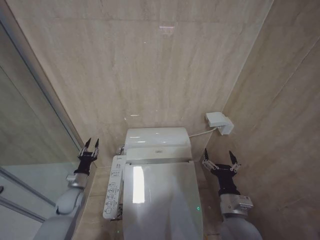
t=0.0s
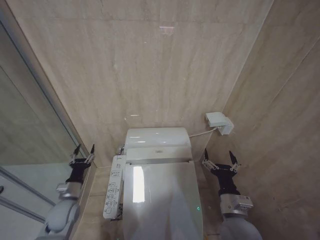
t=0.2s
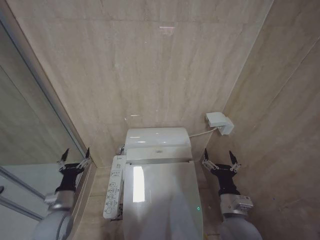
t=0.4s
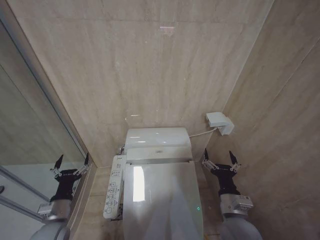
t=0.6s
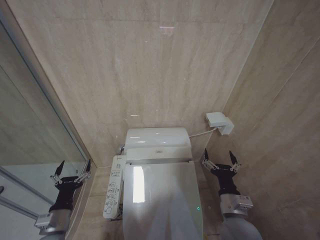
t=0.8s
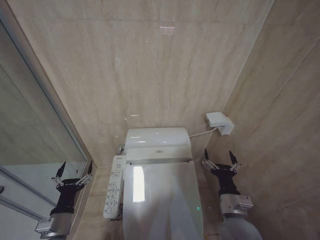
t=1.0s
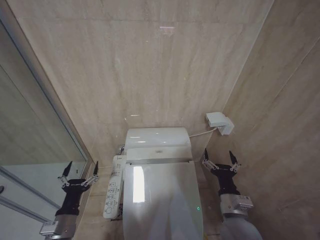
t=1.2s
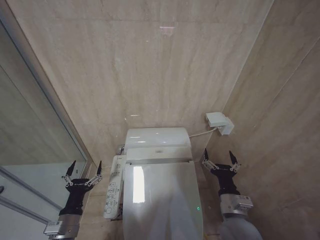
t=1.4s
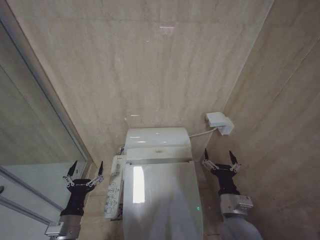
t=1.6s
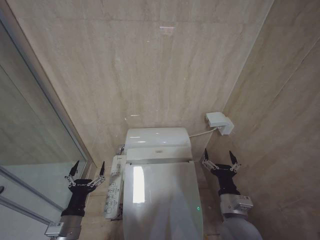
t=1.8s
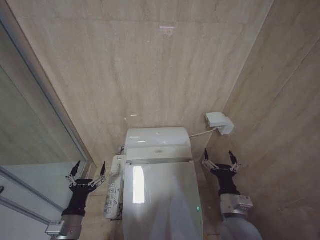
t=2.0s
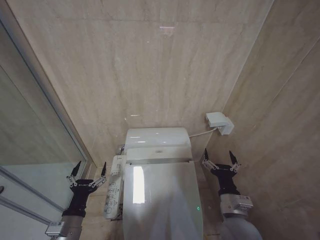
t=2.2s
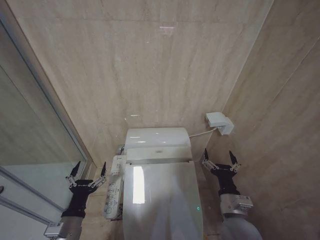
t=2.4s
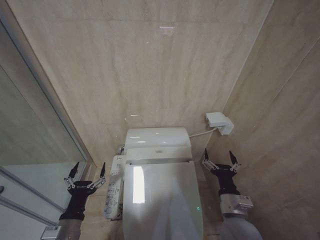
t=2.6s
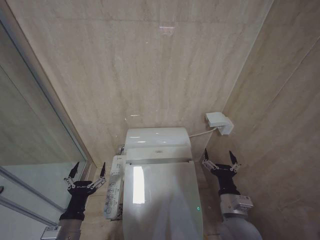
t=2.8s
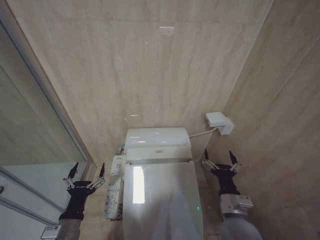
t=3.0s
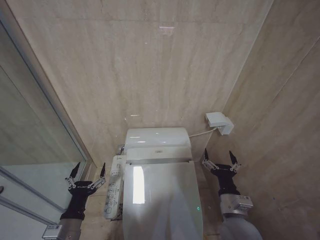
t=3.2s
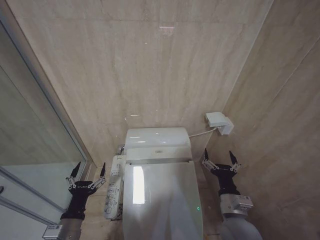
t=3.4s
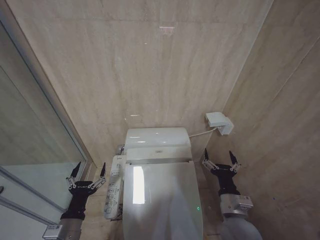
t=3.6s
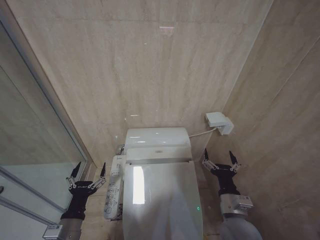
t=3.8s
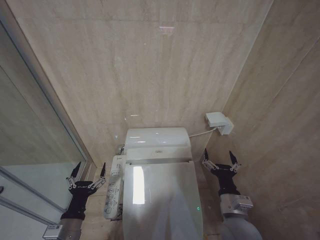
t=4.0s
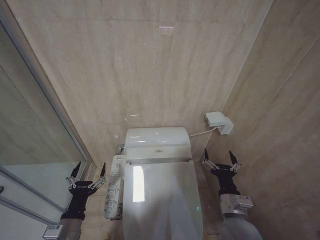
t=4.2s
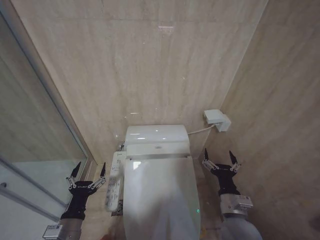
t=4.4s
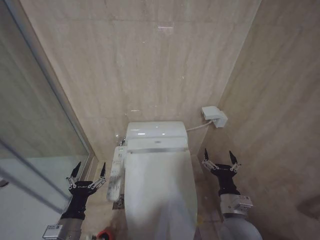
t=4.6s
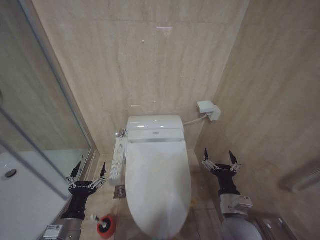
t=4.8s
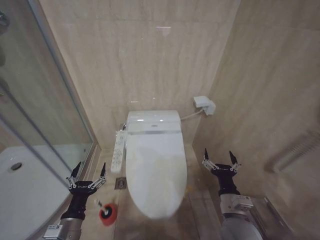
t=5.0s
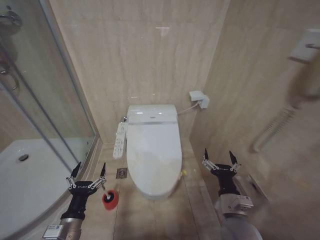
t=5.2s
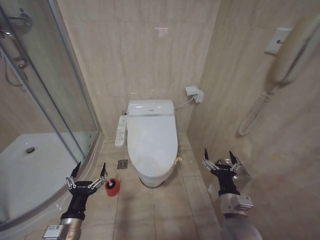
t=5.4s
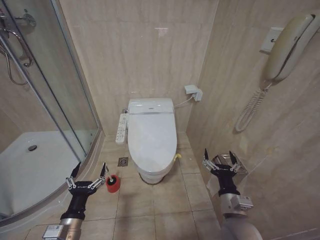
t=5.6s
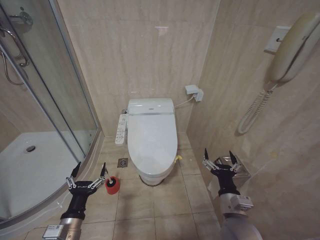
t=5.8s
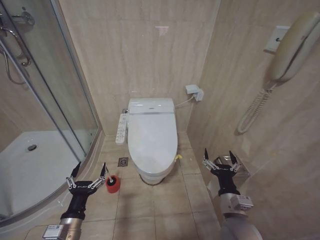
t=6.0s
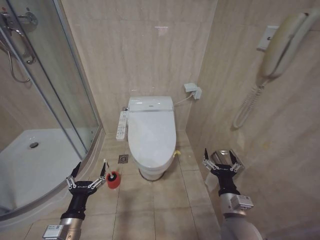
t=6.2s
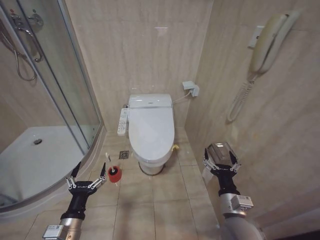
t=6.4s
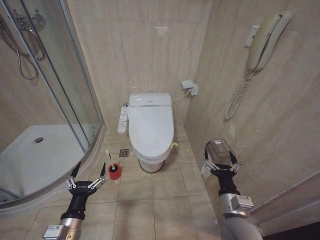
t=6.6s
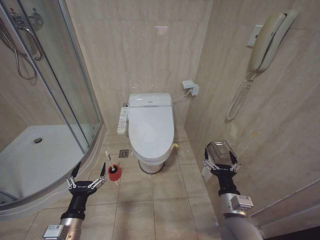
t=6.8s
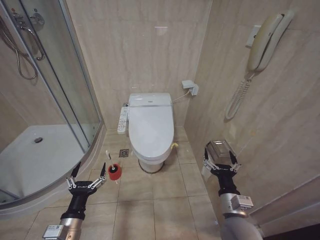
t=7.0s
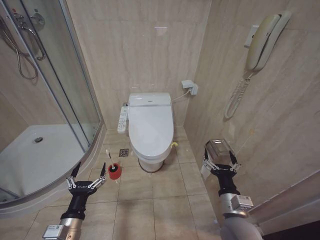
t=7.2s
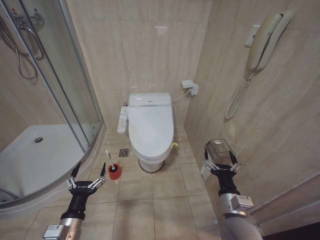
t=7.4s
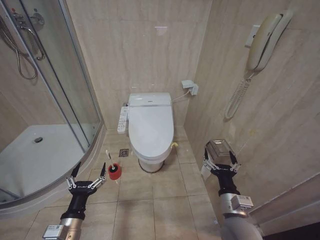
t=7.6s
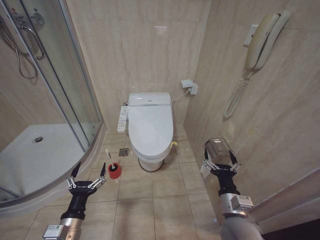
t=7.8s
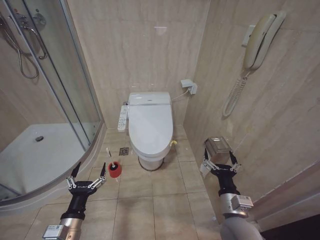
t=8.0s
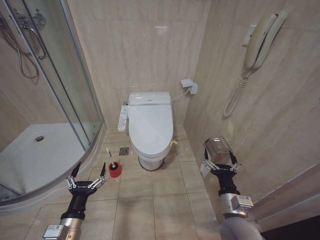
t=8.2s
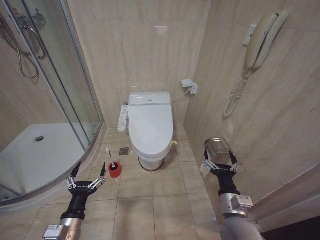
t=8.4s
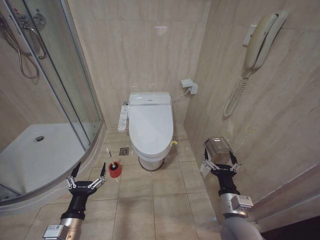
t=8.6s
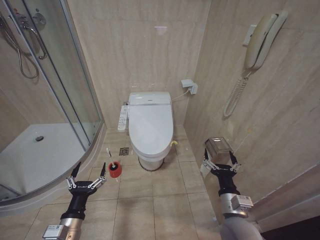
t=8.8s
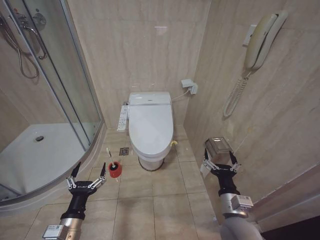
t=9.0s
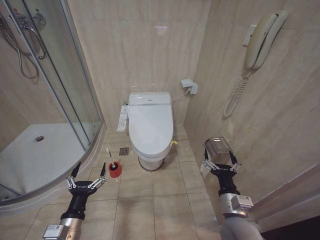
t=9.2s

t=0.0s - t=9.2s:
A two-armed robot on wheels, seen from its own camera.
Task of the whole recording: Open the toilet lid, clean the toilet bowl with a toilet brush, close the toilet lid, and flush.
t=0.0s - t=1.6s: The left gripper heads backward, covering some 20 cm, and opens up.
t=1.6s - t=3.0s: The grippers move only a little.
t=3.0s - t=4.6s: Both grippers stay about where they are.
t=6.2s - t=9.2s: Both grippers stay put.

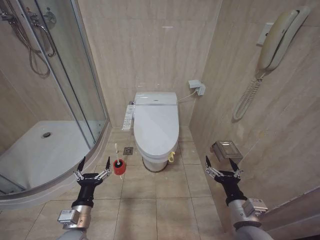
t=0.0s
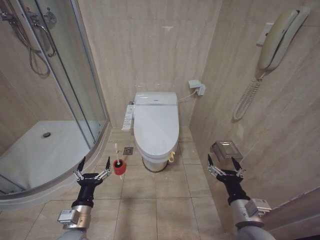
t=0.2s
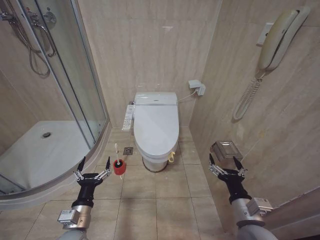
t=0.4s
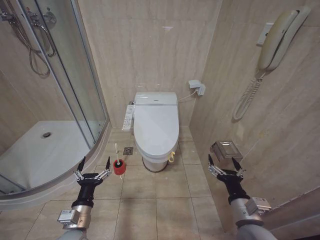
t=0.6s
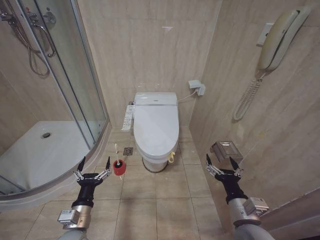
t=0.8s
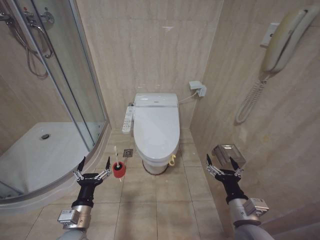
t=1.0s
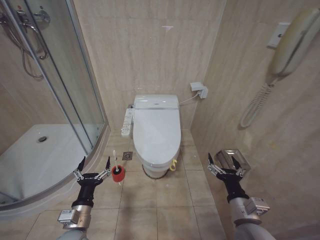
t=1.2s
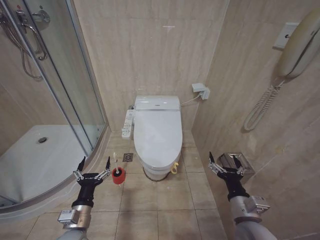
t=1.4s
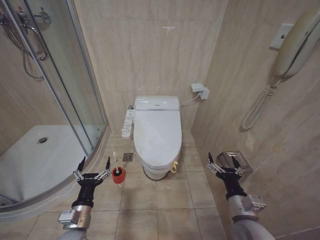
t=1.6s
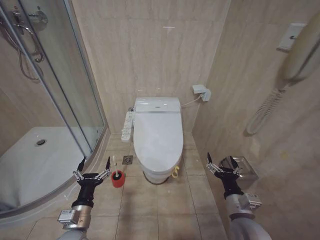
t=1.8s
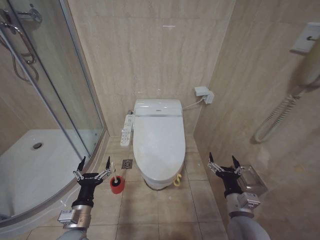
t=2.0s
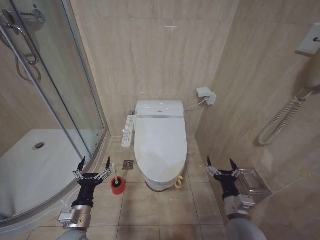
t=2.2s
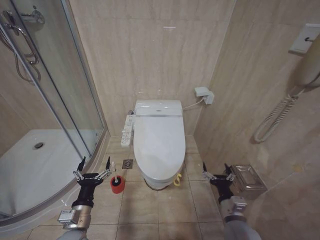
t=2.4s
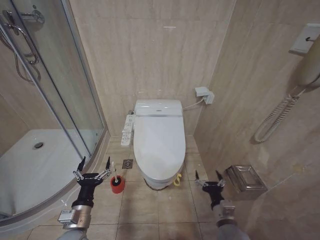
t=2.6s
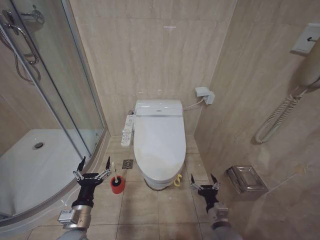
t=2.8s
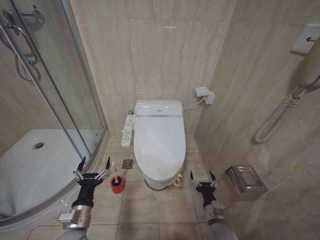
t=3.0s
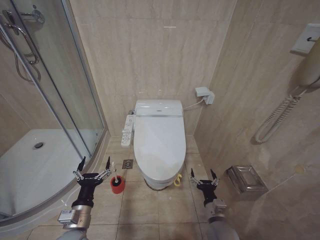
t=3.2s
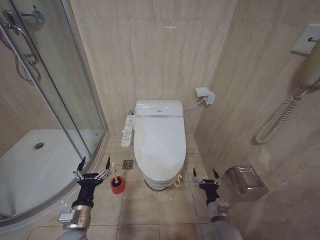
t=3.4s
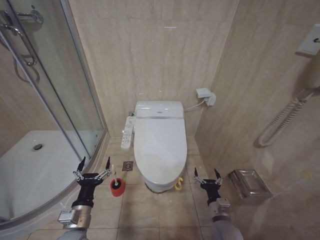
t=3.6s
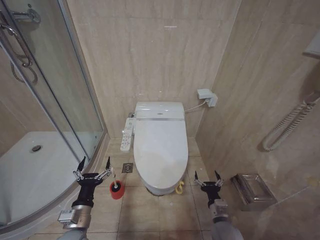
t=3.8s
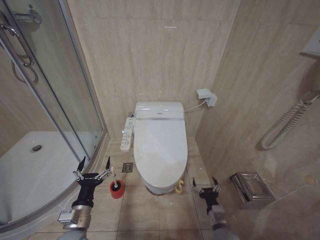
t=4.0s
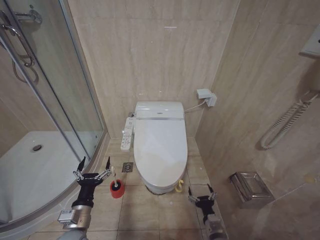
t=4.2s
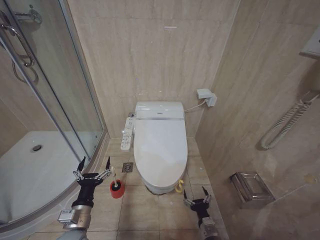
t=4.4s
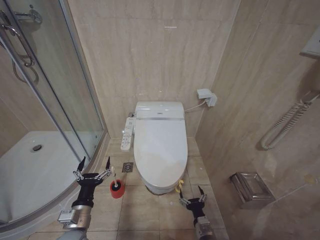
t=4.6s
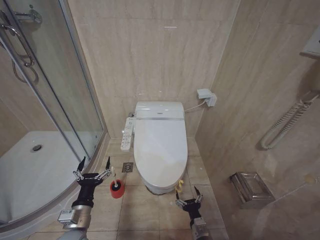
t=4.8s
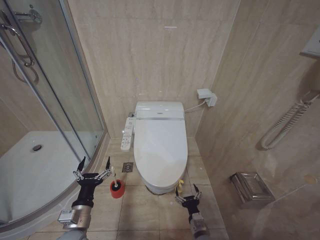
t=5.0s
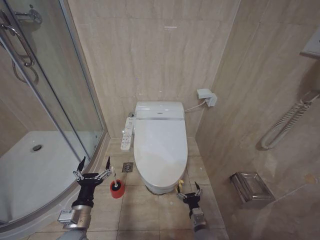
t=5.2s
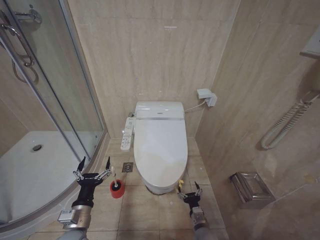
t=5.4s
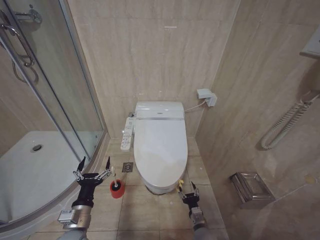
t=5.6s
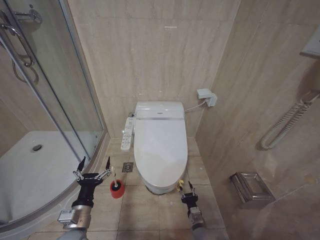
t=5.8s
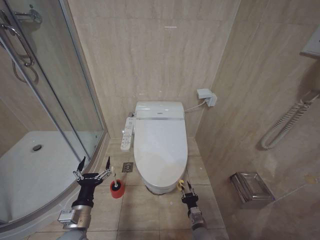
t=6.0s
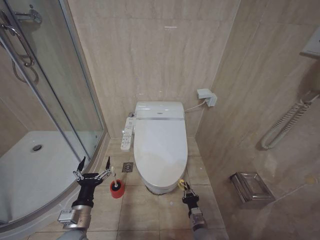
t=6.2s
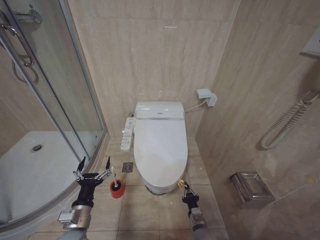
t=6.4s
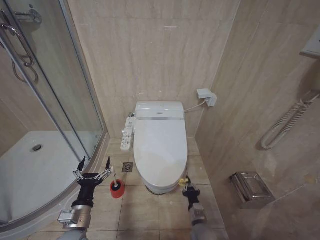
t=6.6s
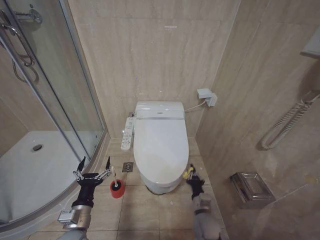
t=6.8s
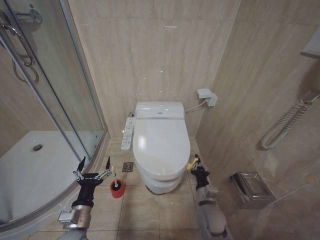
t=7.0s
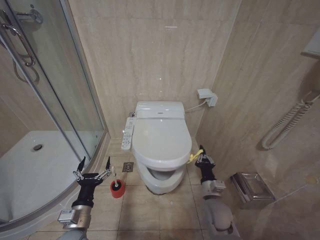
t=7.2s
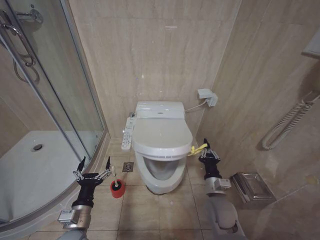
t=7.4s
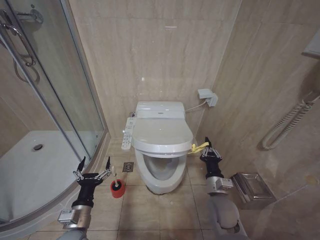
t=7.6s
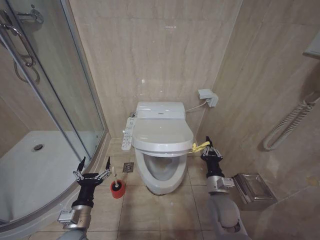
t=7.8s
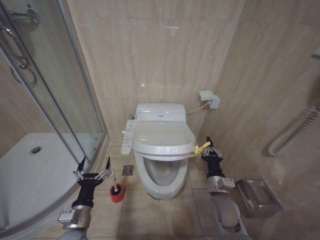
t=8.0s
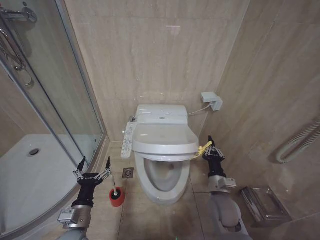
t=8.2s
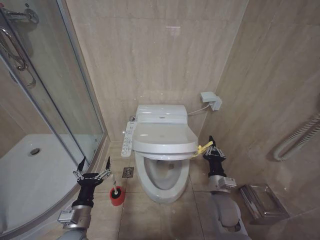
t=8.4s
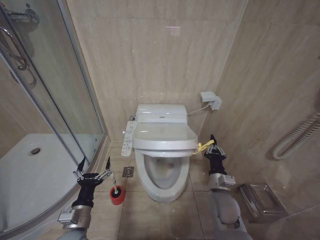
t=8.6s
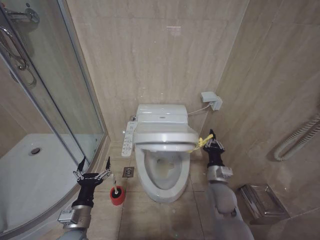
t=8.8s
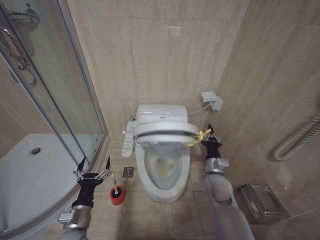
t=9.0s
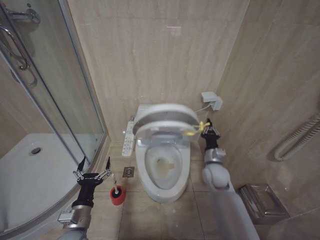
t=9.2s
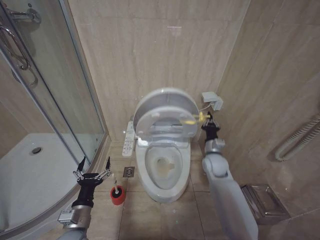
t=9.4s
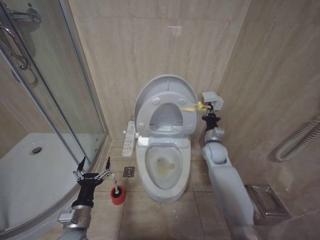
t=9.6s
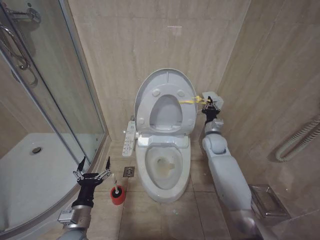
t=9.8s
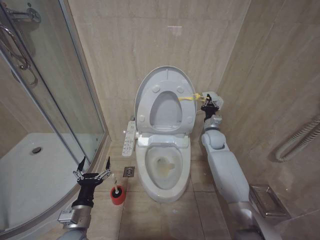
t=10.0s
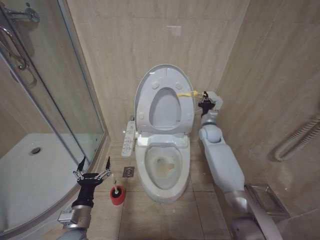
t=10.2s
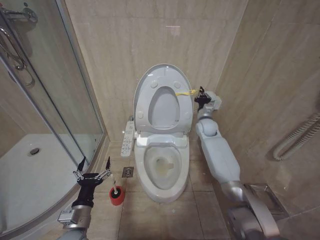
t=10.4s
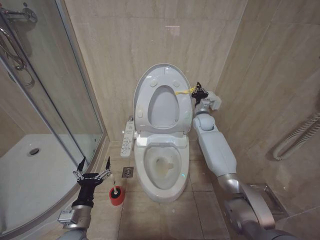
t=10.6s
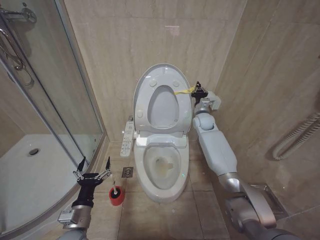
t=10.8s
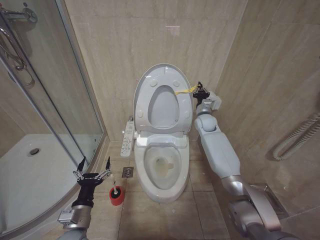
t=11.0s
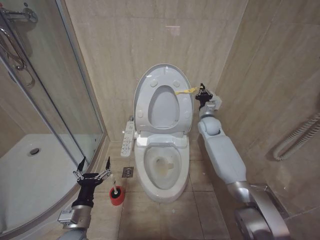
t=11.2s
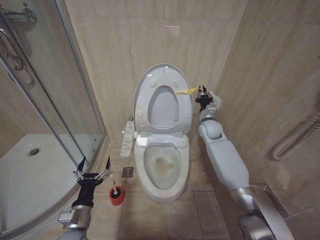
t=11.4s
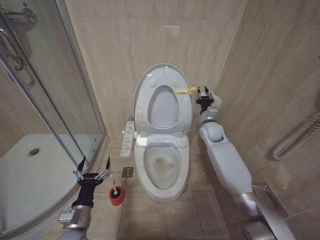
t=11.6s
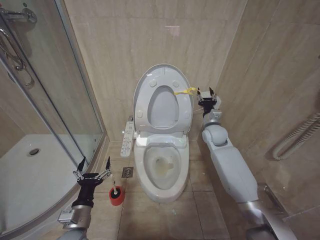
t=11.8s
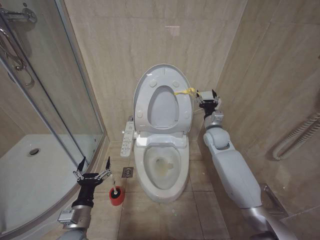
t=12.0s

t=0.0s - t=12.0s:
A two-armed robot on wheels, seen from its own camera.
Task of the whole recording: Open the toilet lid, clean the toilet bowl with a toilet brush, close the toilet lid, and flush.
t=1.6s - t=3.0s: The right gripper moves downward, approximately 15 cm.
t=3.0s - t=4.4s: The right gripper heads downward, covering some 5 cm.
t=4.4s - t=6.0s: The right gripper goes about 5 cm forward and downward, and closes up.
t=6.0s - t=7.6s: The right gripper shifts some 20 cm upward, and closes its fingers.
t=7.6s - t=9.0s: The right gripper changes place by roughly 5 cm.
t=9.0s - t=10.4s: The right gripper moves forward and upward, roughly 25 cm.
t=10.4s - t=12.0s: The right gripper shifts roughly 5 cm backward, and opens its fingers.

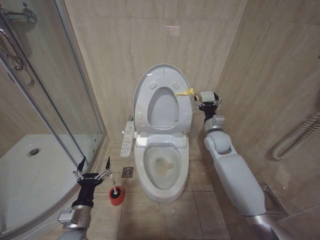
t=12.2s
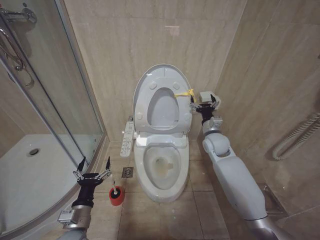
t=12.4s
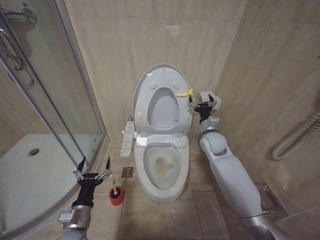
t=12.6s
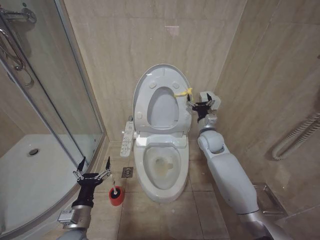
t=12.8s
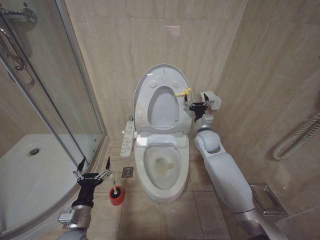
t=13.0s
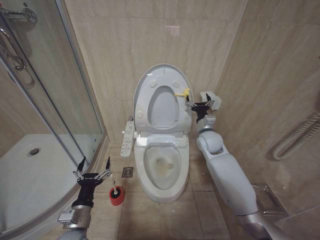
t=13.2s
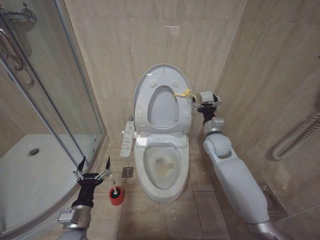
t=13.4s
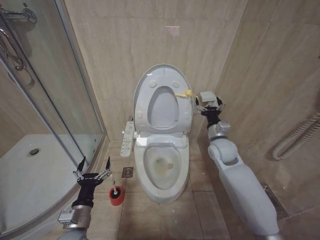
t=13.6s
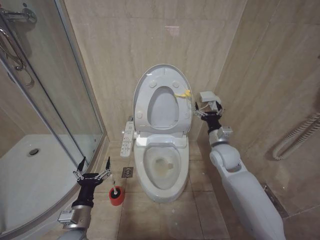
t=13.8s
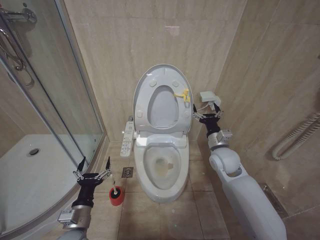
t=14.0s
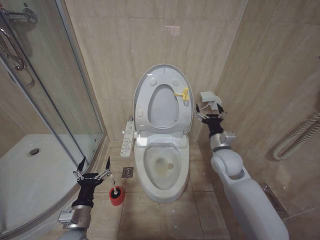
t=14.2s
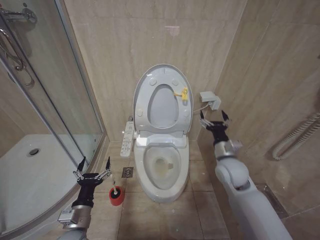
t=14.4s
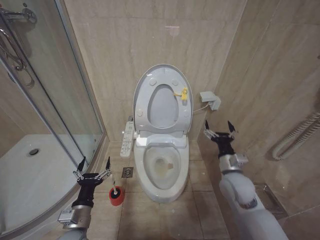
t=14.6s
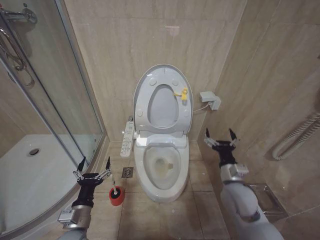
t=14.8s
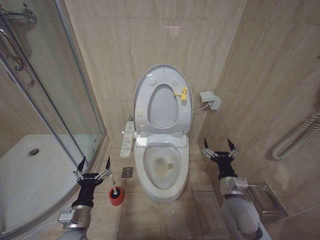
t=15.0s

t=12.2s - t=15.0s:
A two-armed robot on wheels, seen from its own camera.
Task of the whole recording: Open the toilet lid, clean the toilet bowl with a toilet brush, close the toilet lid, and flush.
t=12.2s - t=13.6s: The grippers move only a little.
t=13.6s - t=15.0s: The right gripper heads backward and downward, covering approximately 20 cm.
